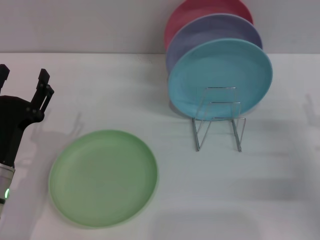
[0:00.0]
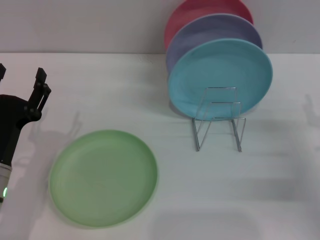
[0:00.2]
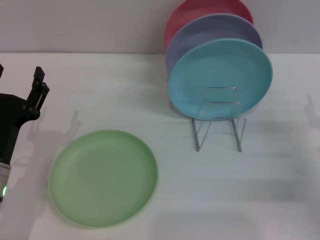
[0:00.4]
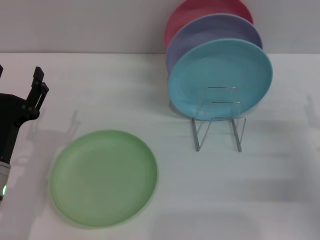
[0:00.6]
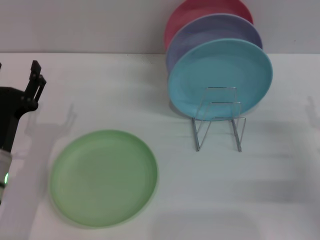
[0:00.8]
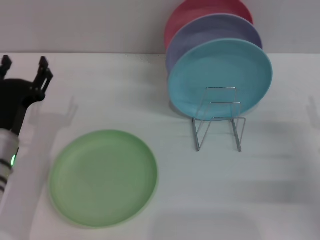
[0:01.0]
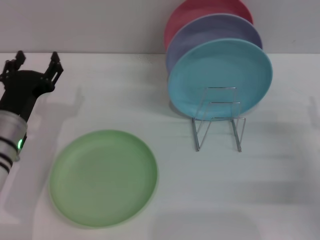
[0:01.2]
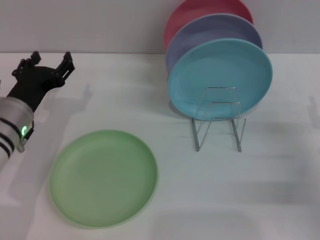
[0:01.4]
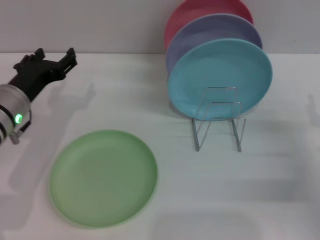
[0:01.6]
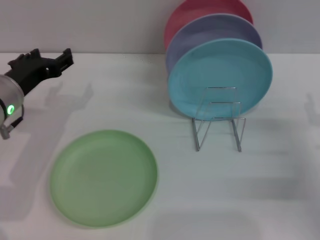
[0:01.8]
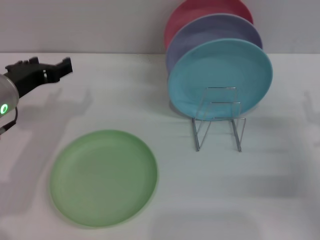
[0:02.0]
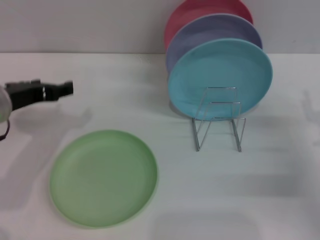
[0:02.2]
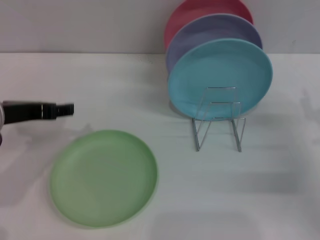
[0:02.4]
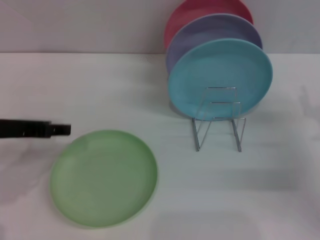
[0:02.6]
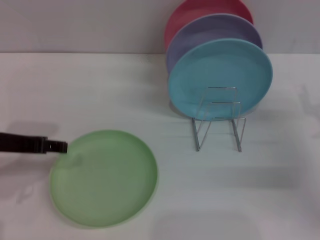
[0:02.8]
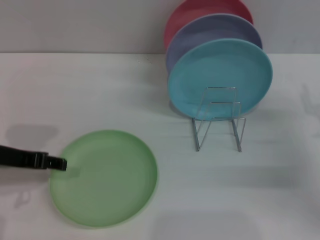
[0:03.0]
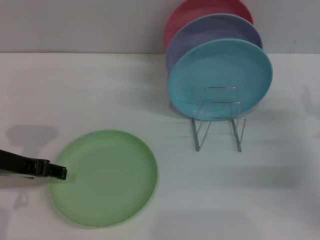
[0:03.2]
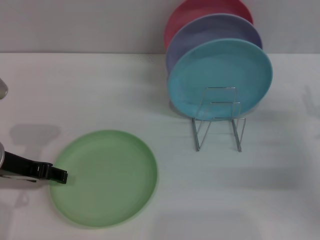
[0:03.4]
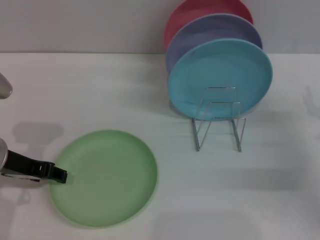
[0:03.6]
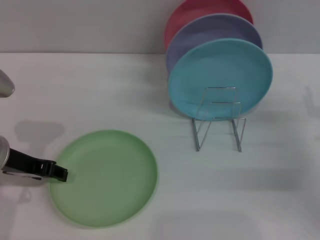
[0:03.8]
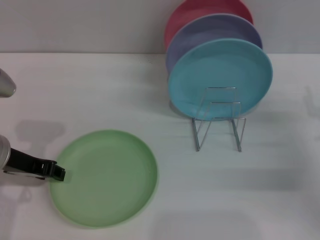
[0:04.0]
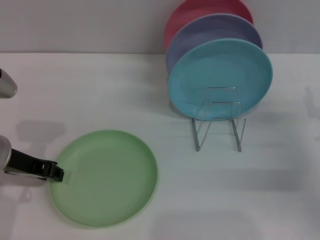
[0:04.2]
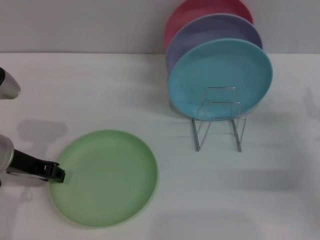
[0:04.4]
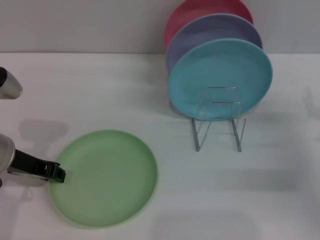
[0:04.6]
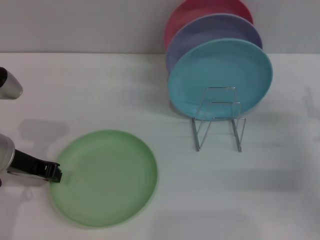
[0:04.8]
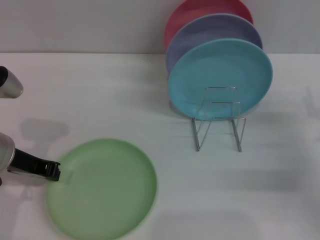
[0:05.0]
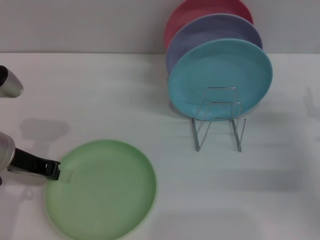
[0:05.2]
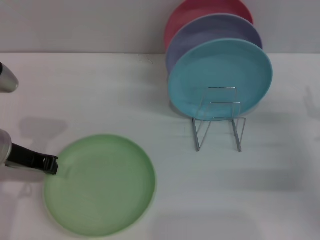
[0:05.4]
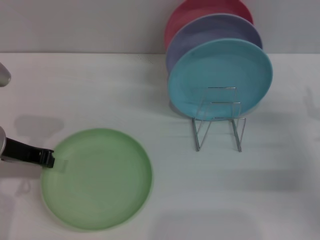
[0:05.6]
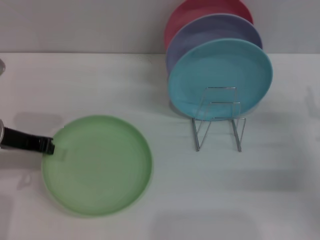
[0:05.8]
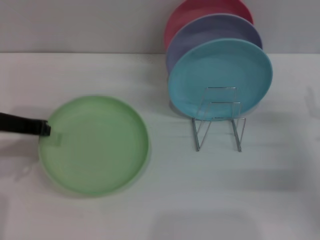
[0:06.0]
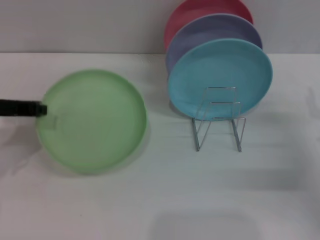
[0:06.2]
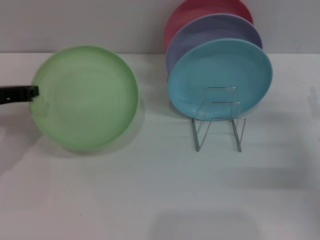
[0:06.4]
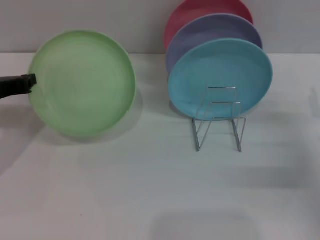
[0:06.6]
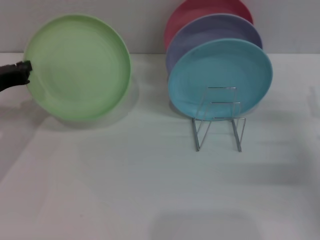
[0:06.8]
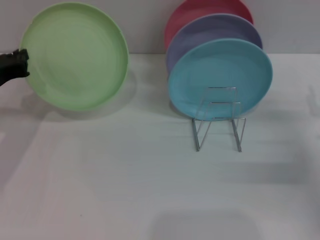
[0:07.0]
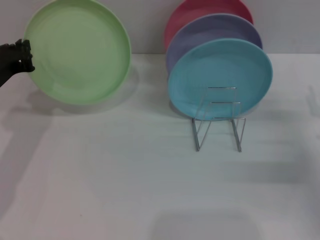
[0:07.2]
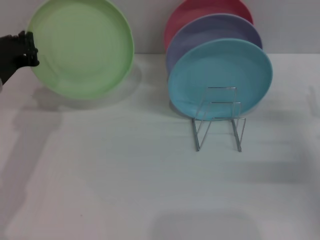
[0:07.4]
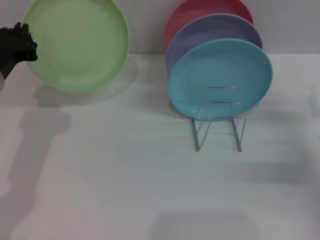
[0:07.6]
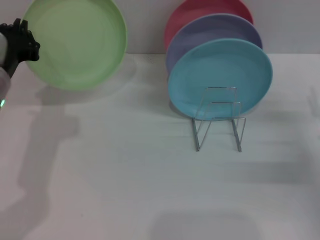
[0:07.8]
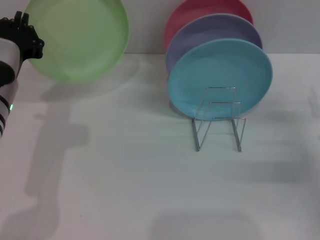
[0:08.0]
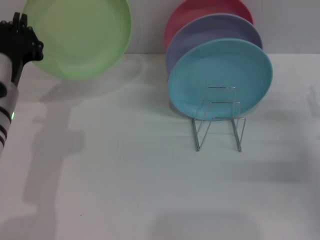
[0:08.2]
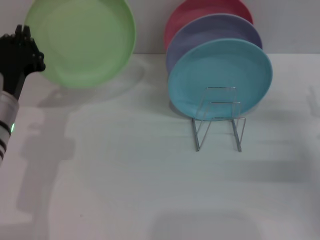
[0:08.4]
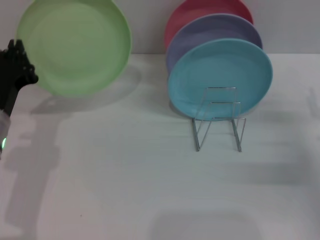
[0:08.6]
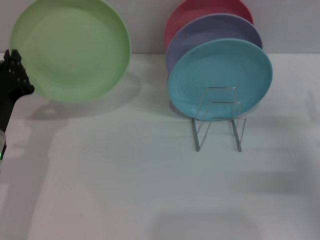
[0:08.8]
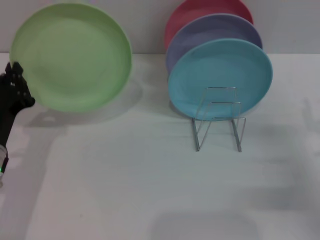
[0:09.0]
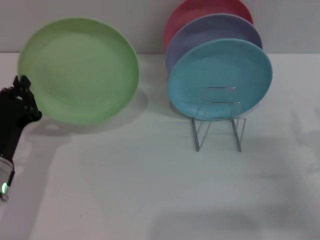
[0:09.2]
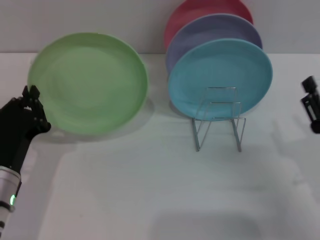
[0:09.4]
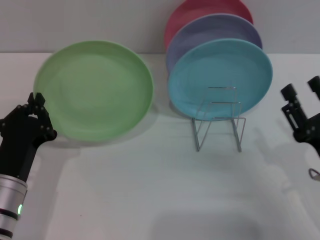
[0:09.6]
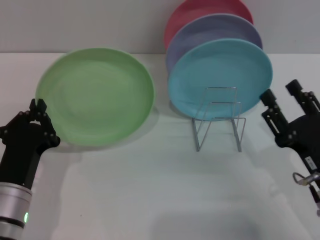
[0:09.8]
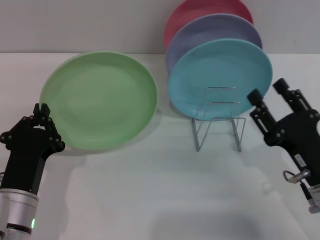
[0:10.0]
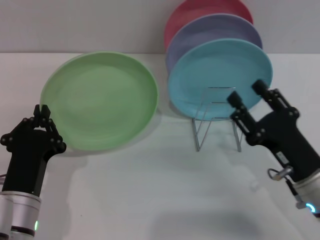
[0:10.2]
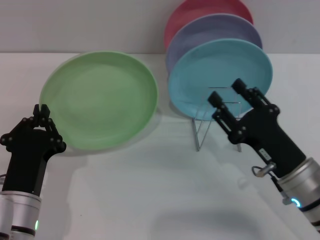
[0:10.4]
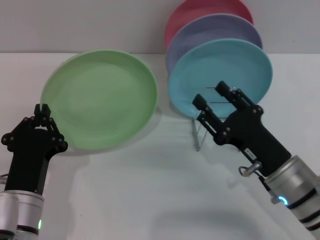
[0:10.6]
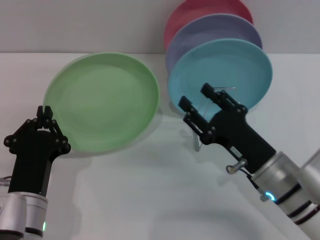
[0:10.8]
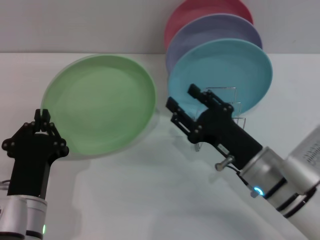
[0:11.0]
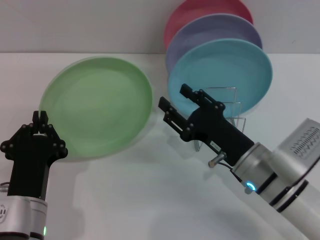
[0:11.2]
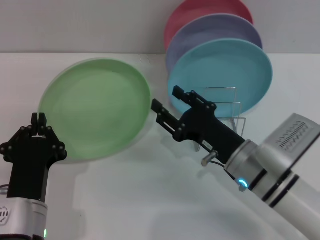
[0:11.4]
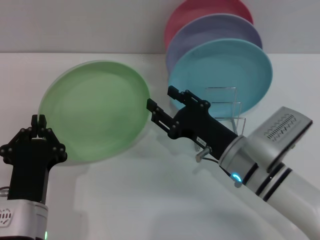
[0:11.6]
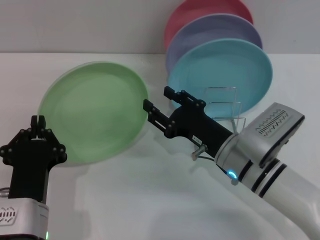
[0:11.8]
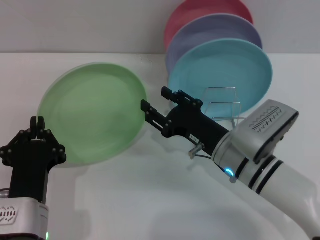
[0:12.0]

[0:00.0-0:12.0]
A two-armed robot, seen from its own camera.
Task of the whole recording: Grip the plate with one hand, pass it to the other, then set it on the shelf.
Step, 0:00.0 to 0:07.4: Pick up the plate with the left gripper.
0:00.0 to 0:01.6: The left gripper goes some 10 cm forward and upward.
0:01.6 to 0:03.0: The left gripper is displaced upward and backward by about 10 cm.
0:03.0 to 0:04.4: The left gripper closes its fingers.
0:04.4 to 0:06.0: The left gripper closes.
0:07.6 to 0:09.0: The left gripper shifts some 10 cm downward and backward.
0:09.0 to 0:10.4: The right gripper goes some 10 cm to the left, while the left gripper heads backward and to the right, covering about 10 cm.
0:10.4 to 0:12.0: The right gripper goes approximately 10 cm to the left and forward.

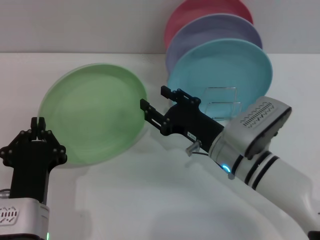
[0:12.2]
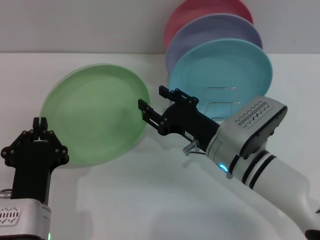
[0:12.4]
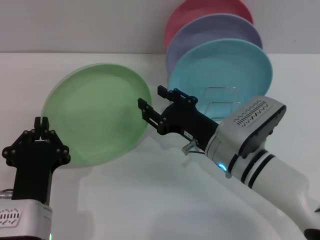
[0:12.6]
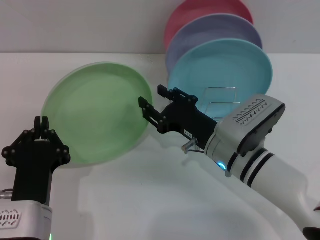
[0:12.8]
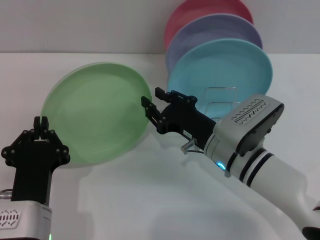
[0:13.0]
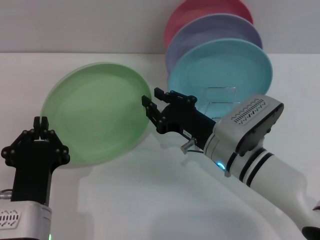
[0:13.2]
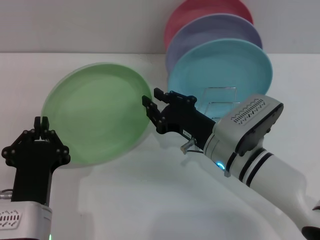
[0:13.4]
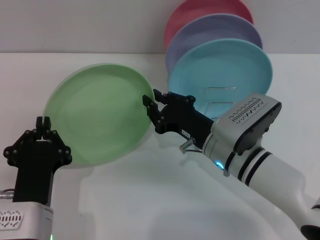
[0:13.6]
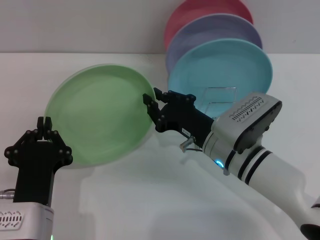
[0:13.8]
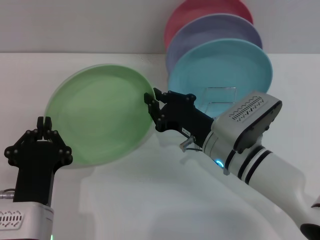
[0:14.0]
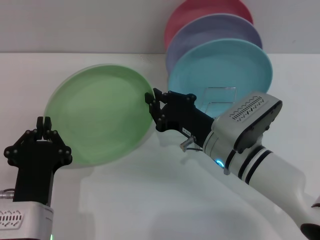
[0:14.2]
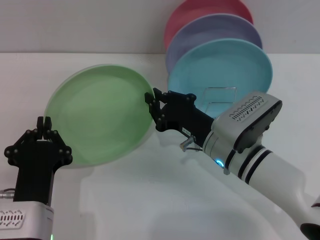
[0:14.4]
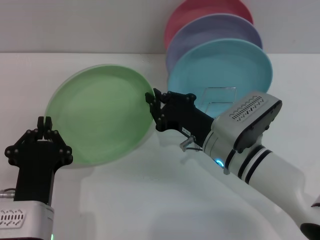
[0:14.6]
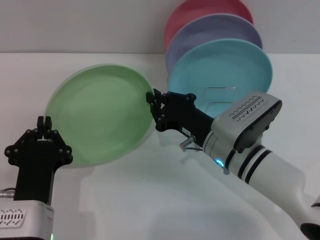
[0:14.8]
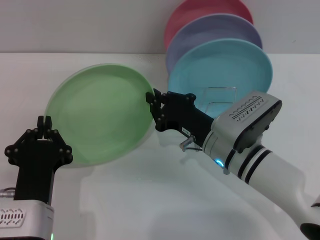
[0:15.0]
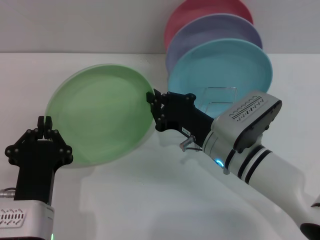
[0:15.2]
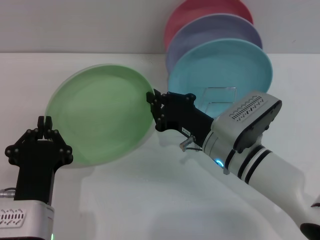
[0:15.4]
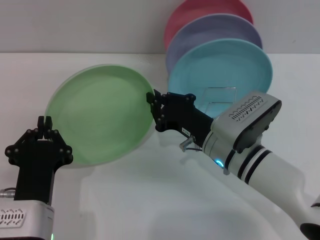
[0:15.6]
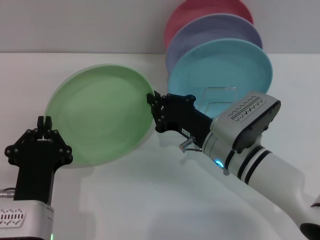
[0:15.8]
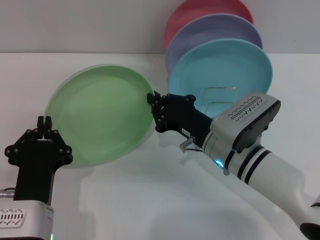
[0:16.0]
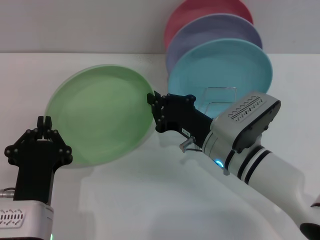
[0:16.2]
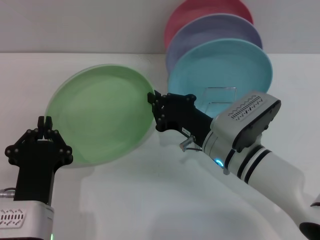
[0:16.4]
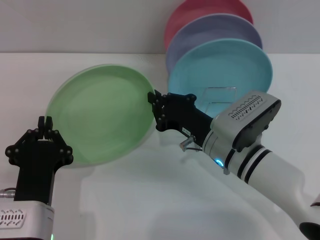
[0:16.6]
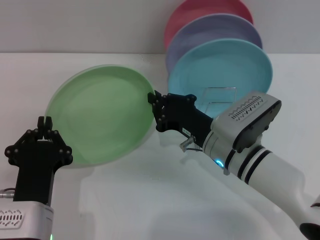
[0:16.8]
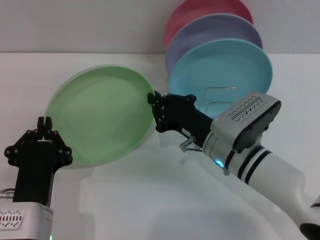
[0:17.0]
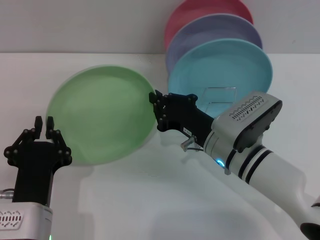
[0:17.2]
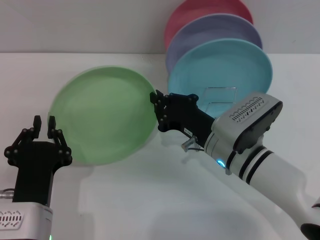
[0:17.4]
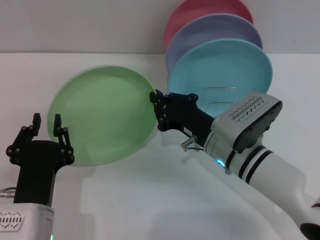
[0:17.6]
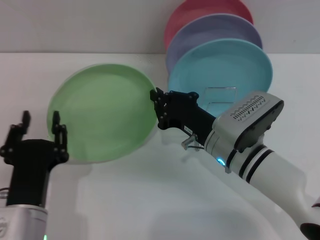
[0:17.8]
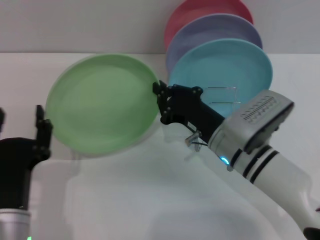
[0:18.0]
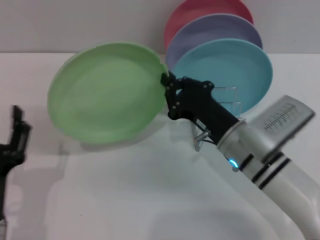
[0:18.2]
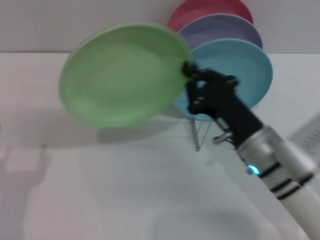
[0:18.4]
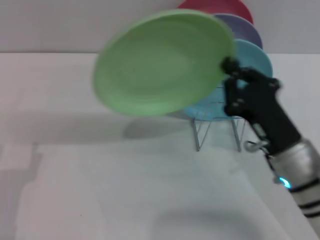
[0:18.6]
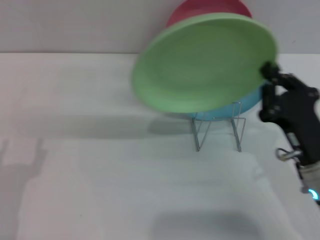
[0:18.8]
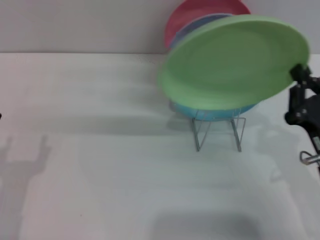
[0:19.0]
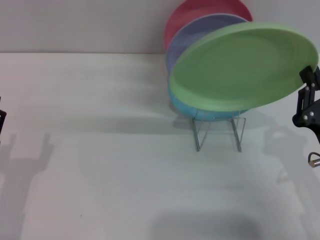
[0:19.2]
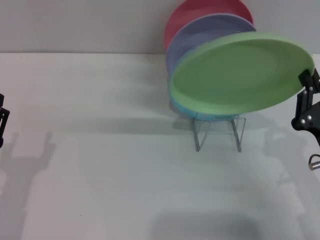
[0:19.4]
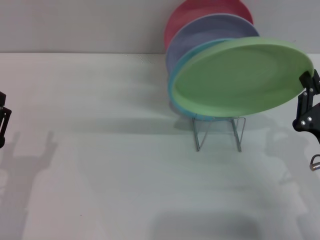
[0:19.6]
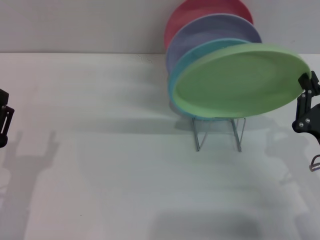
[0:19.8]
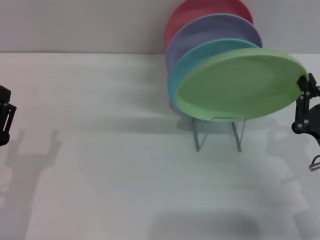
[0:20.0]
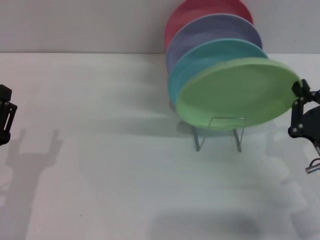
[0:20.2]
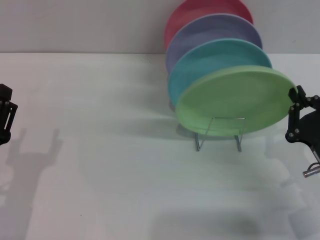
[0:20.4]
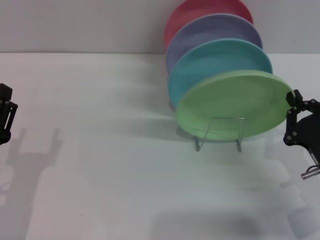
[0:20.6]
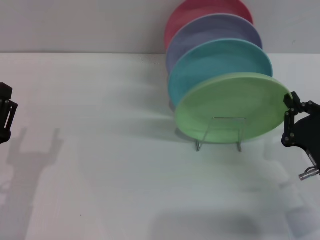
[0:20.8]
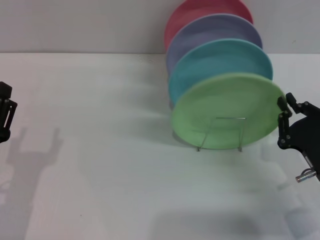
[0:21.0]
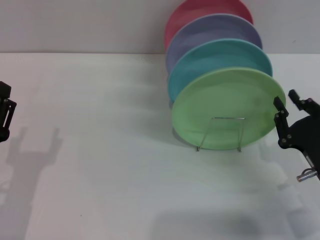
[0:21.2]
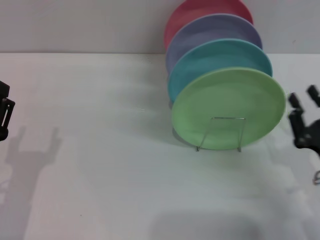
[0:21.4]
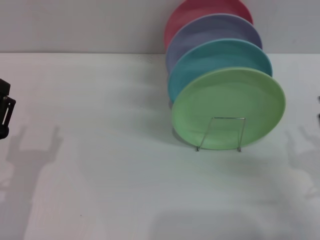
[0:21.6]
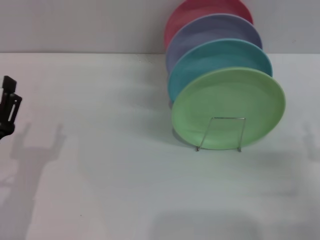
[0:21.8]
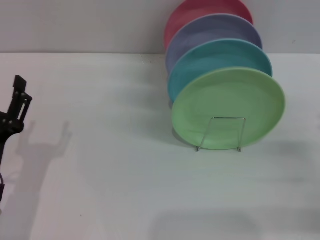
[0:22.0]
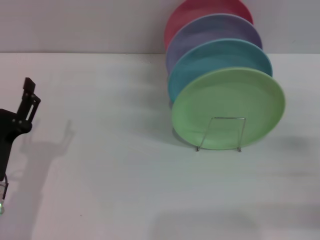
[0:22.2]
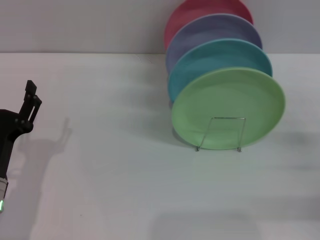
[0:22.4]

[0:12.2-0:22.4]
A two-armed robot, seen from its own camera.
Task of the whole recording: Grip the plate with one hand, pass it to the other, then set it on the shelf.
Step, 0:12.2 to 0:18.4: Pass the plate from the left gripper to the right gripper.
Step, 0:18.8 to 0:21.6: Place the plate on the shelf with the right gripper.
0:12.2 to 0:13.6: The right gripper closes up.
0:13.6 to 0:16.6: Both grippers stay put.
0:16.6 to 0:18.0: The left gripper opens up.
0:18.0 to 0:19.4: The left gripper goes roughly 5 cm to the left. The right gripper moves to the right and backward, roughly 15 cm.
0:19.4 to 0:21.0: The grippers move only a little.
0:21.0 to 0:22.4: The right gripper is displaced to the right by roughly 10 cm, and opens its fingers.
